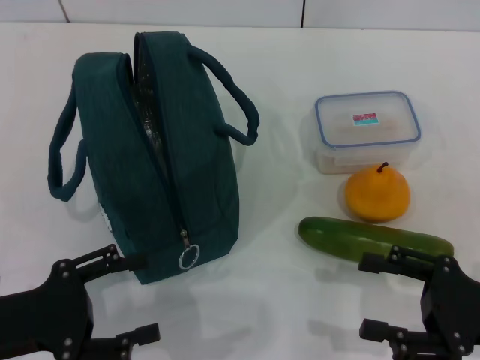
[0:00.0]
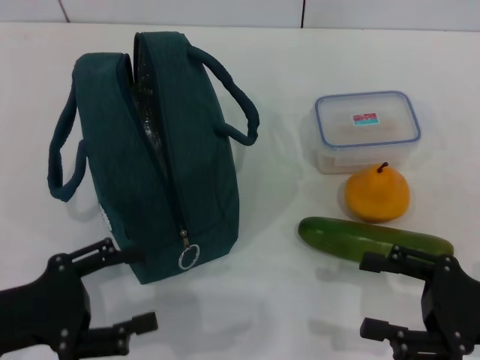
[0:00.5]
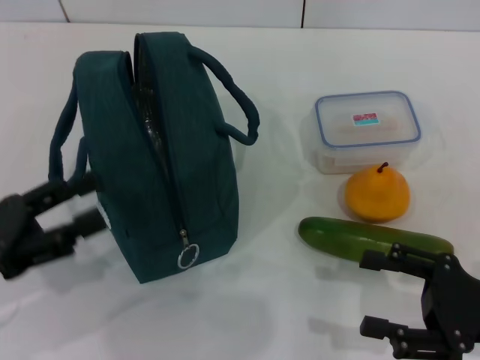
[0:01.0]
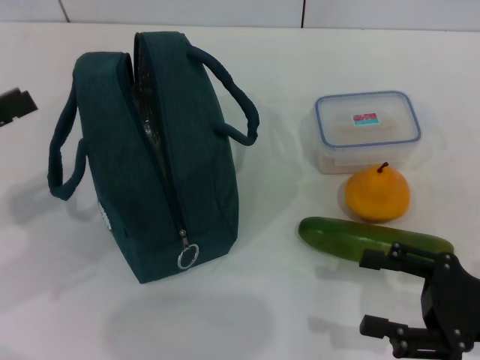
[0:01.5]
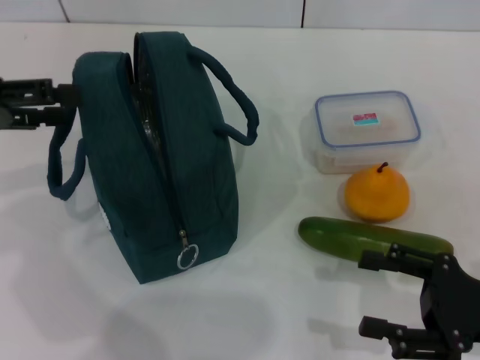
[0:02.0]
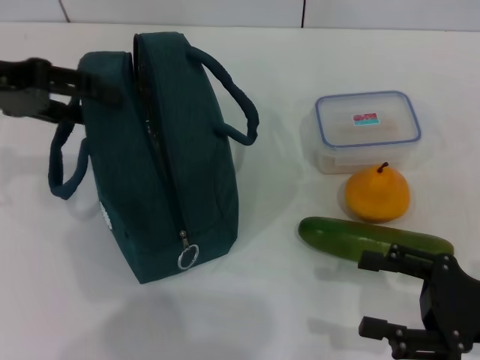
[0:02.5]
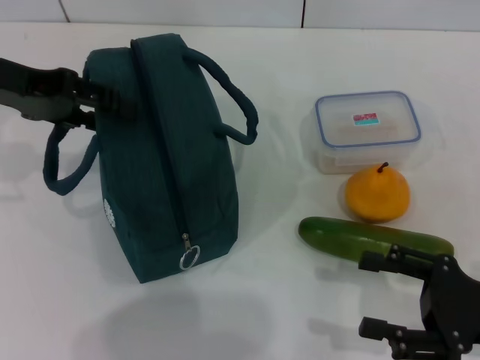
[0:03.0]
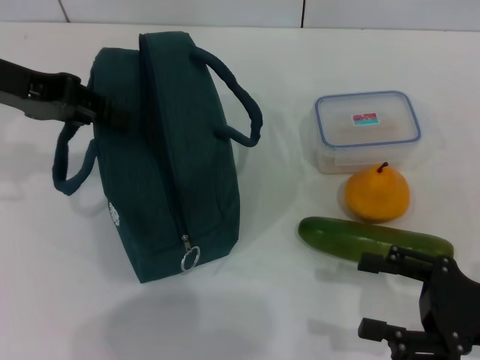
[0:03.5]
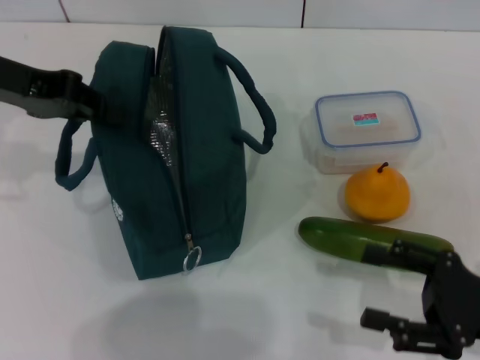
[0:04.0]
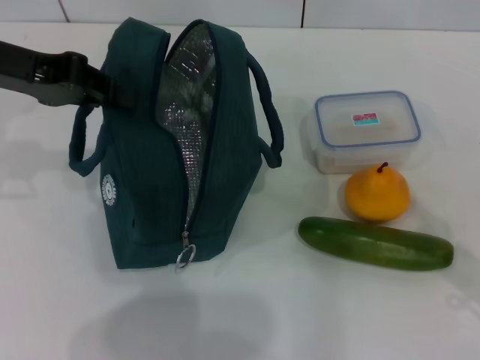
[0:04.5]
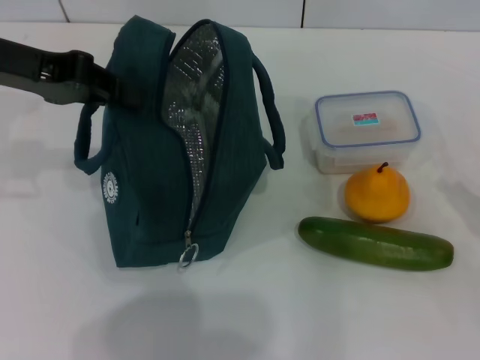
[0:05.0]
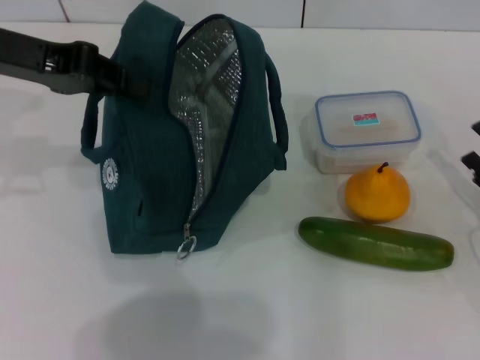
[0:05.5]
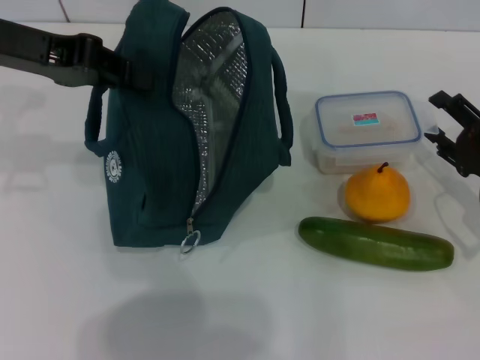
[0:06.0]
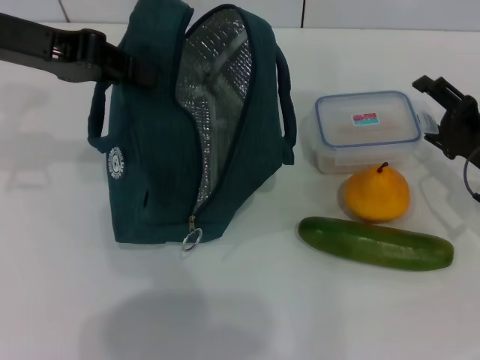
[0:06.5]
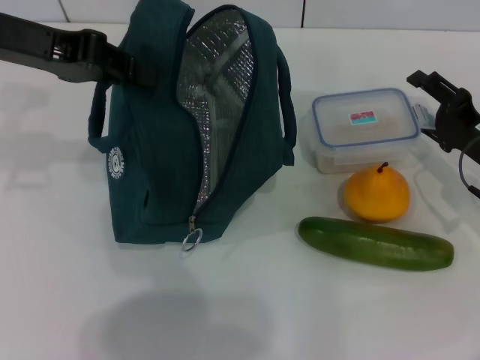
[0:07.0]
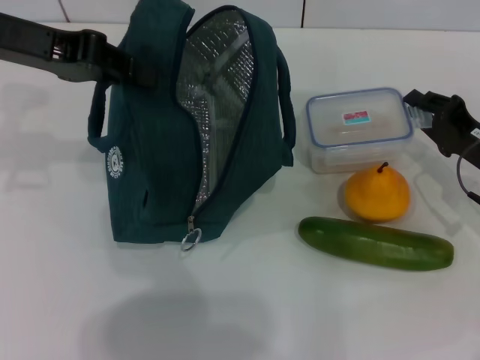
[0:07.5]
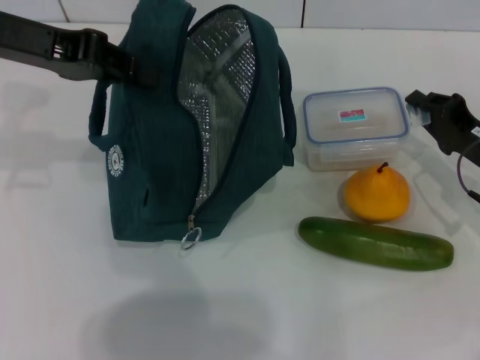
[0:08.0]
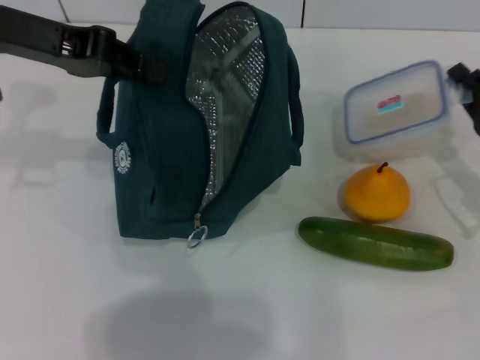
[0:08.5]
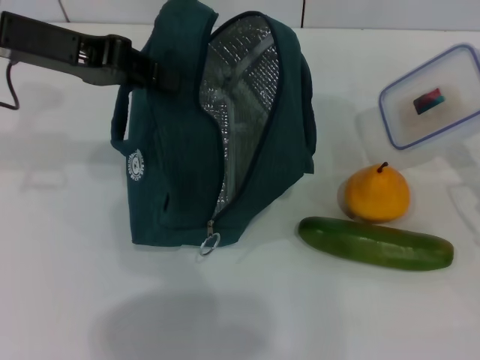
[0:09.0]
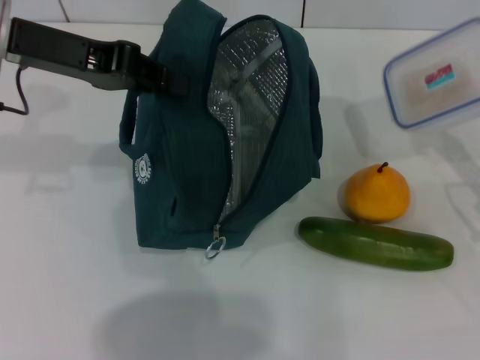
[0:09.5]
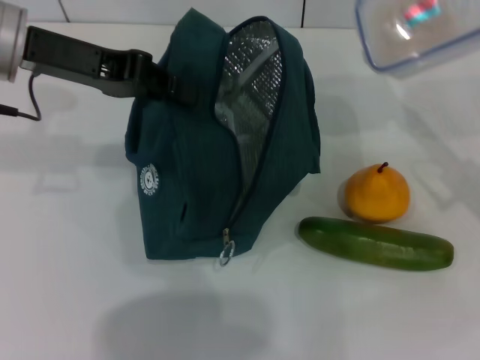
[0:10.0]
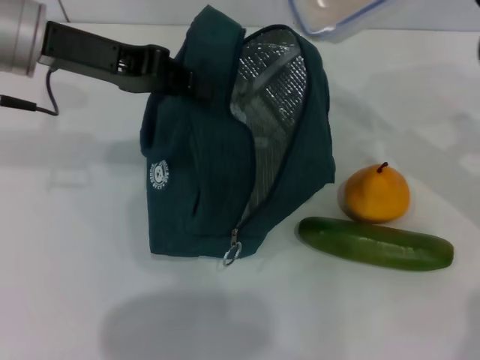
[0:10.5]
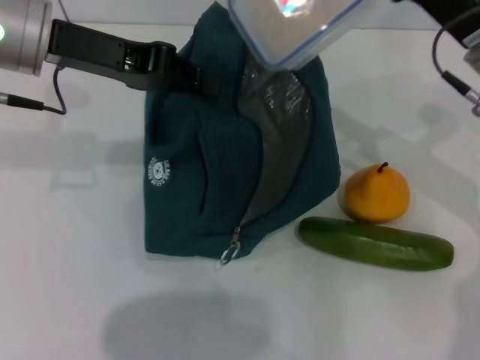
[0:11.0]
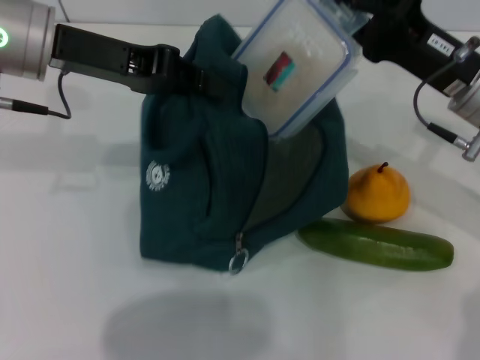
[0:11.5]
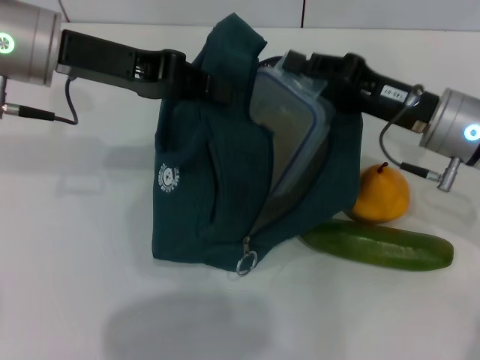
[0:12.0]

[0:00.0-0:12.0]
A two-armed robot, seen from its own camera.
Step, 0:00.0 to 0:04.0: Hold the lunch bag with your left hand.
Step, 0:04.5 to 0:07.5: Pick up the lunch box with your right hand.
0:00.0 to 0:02.0: The left gripper goes some 20 cm forward, upward and to the left.
0:02.0 to 0:04.0: The left gripper shifts roughly 10 cm to the right and forward, and closes its fingers.
0:04.0 to 0:06.0: The right gripper goes roughly 10 cm forward.
0:06.0 to 0:08.0: The right gripper closes.
0:08.0 to 0:10.0: The right gripper shifts about 10 cm upward.
0:10.0 to 0:12.0: The right gripper is displaced to the left by about 10 cm.

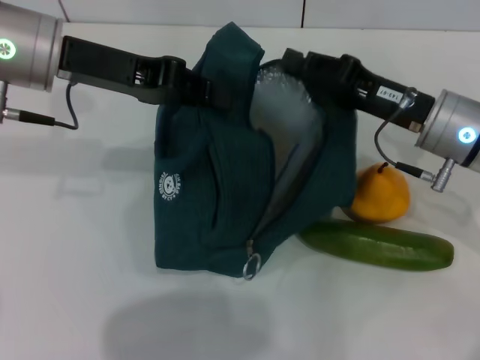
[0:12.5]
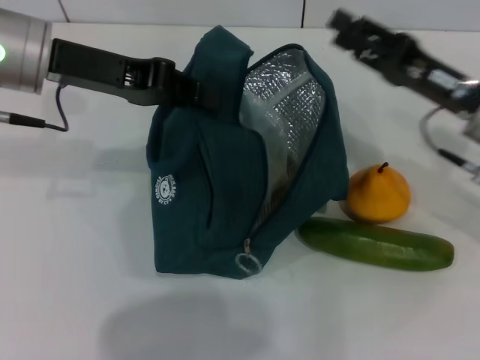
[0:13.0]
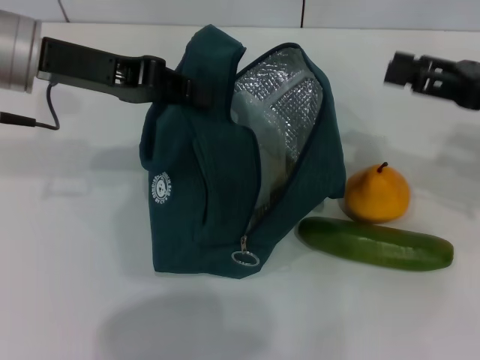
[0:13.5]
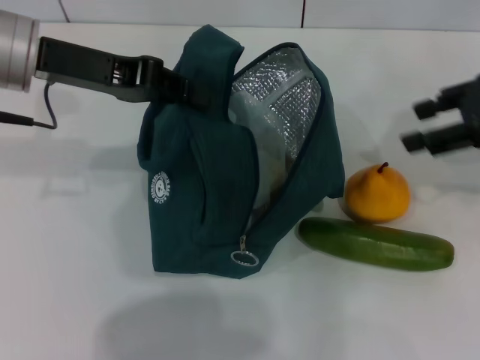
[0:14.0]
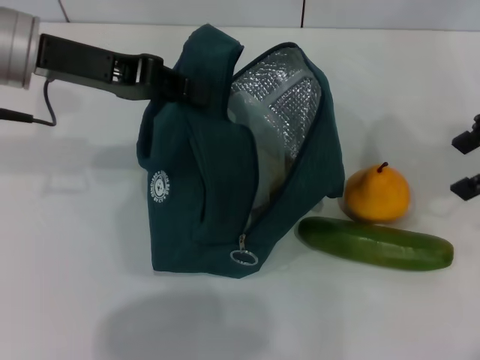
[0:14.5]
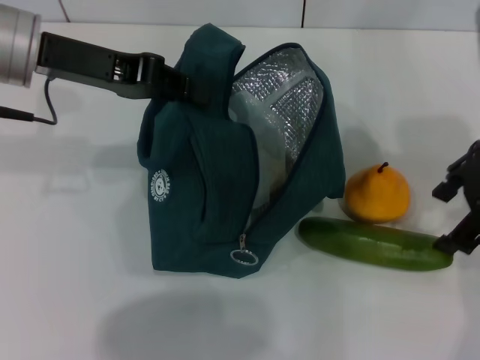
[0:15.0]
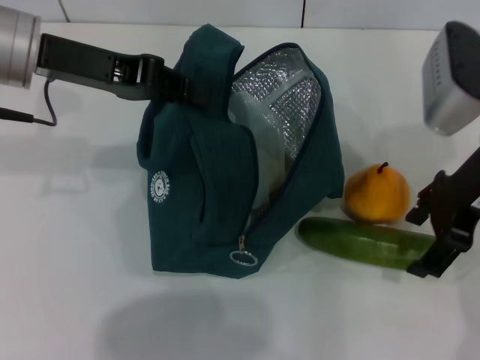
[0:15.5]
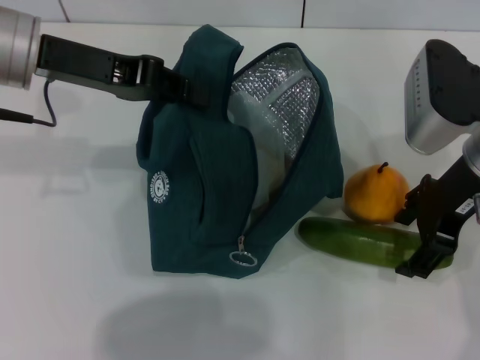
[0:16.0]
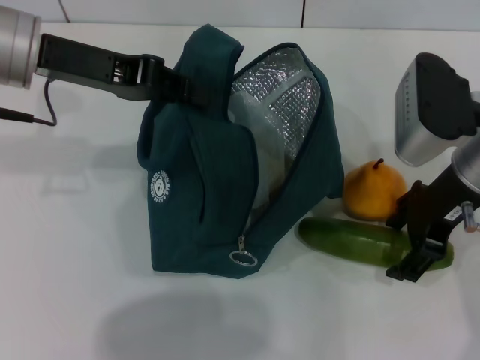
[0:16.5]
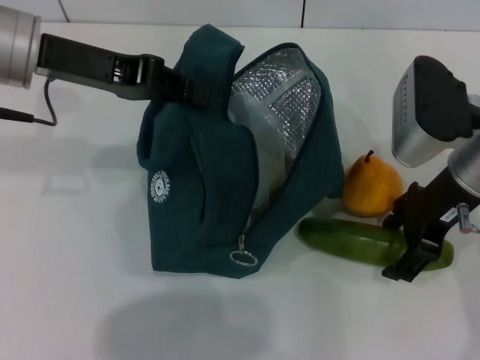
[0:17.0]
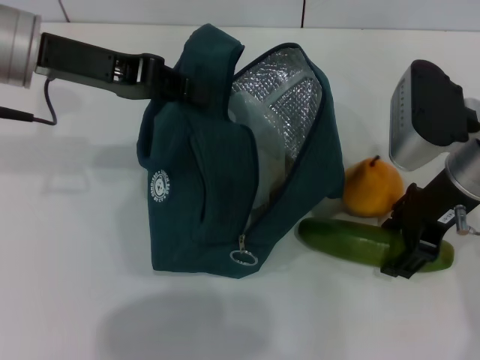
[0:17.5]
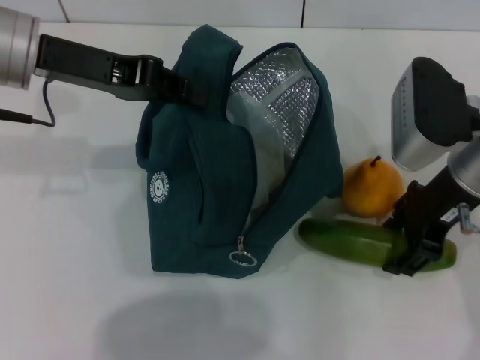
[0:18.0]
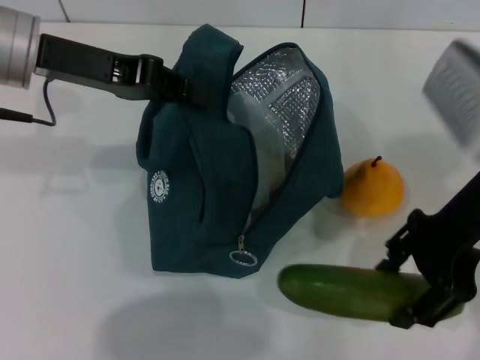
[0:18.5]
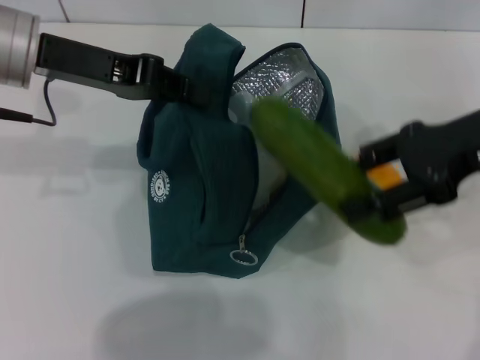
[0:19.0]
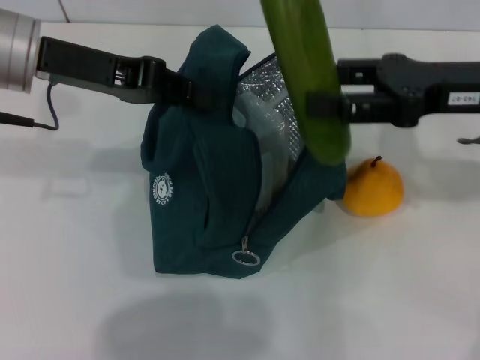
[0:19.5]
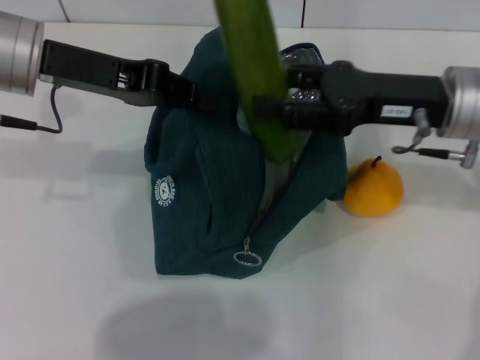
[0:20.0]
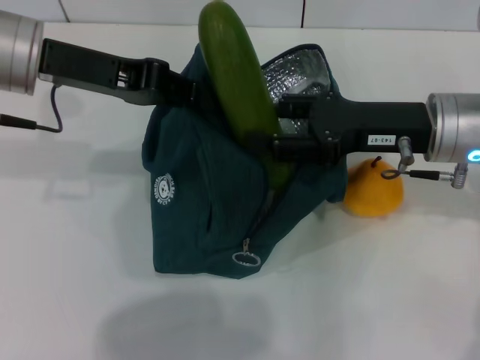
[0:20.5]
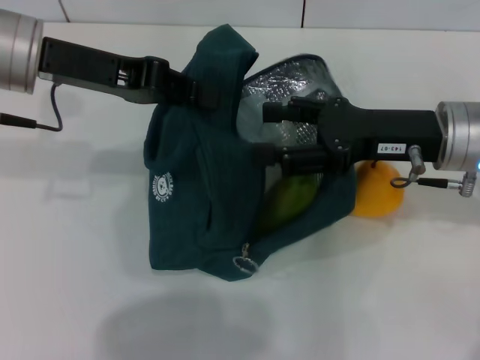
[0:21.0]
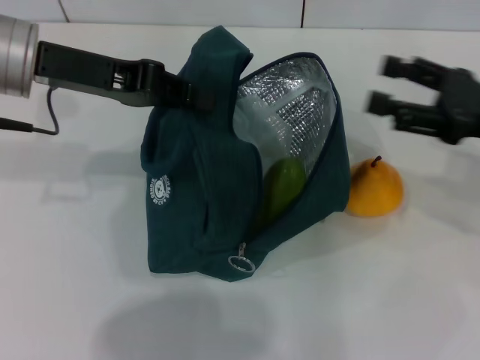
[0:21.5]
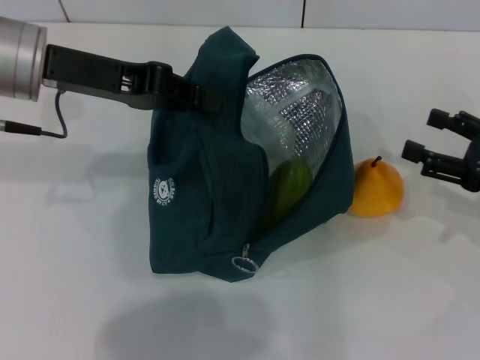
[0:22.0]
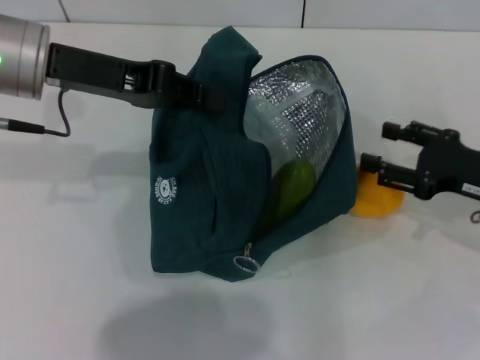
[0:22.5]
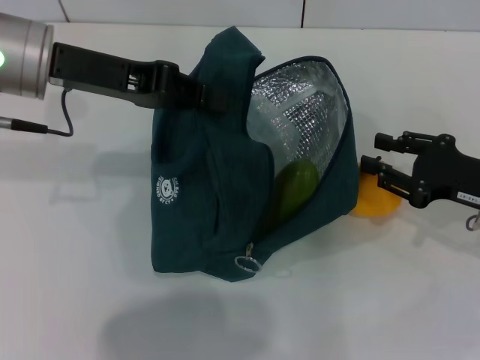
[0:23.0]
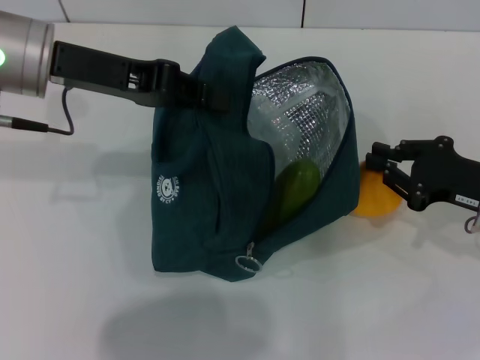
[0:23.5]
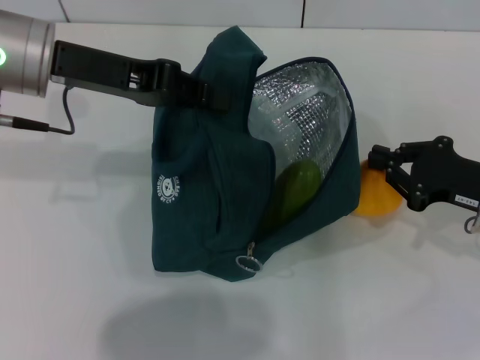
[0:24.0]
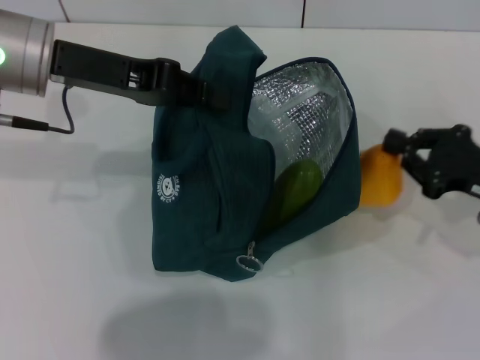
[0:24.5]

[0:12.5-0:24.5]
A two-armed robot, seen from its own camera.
Step, 0:13.0 to 0:17.5: Pick up the cucumber with your right hand.
Step, 0:18.0 to 0:21.0: Put the cucumber into the lunch bag with your right hand.
Step, 0:21.5 to 0:23.5: Grab the pear with your right hand.
0:12.5 to 0:14.5: The right gripper moves upward and to the right, approximately 20 cm, and opens.
0:14.5 to 0:16.5: The right gripper is displaced downward and to the left by some 15 cm.
0:16.5 to 0:18.5: The right gripper changes place by roughly 5 cm.
0:18.5 to 0:20.5: The right gripper is displaced downward by some 5 cm.
0:20.5 to 0:22.5: The right gripper travels to the right and downward by about 10 cm.
0:22.5 to 0:24.5: The right gripper closes up.

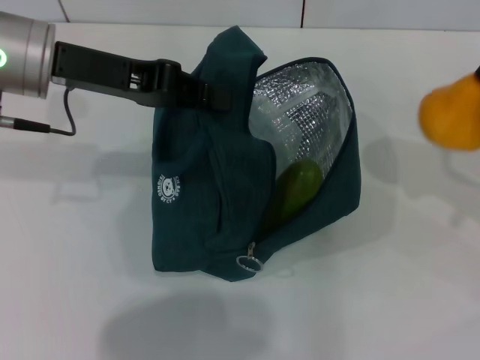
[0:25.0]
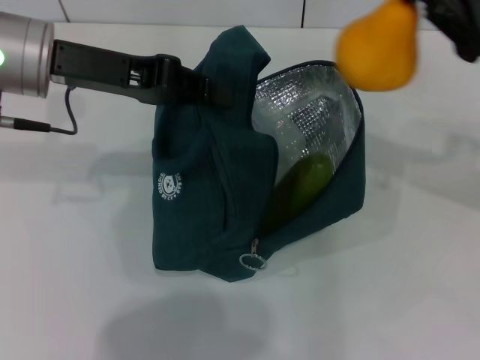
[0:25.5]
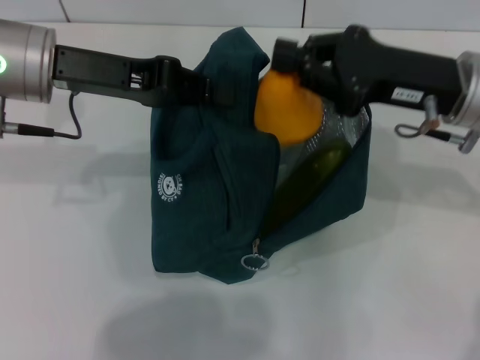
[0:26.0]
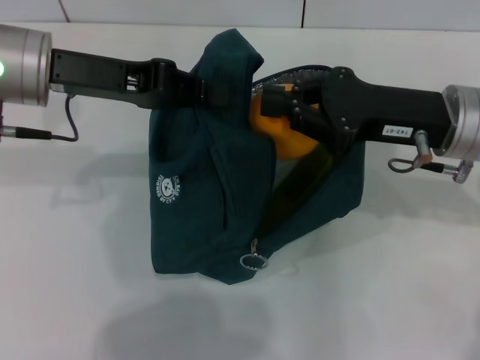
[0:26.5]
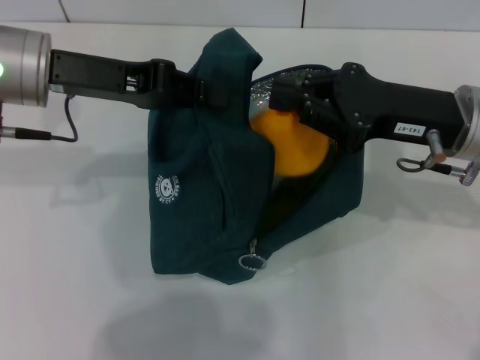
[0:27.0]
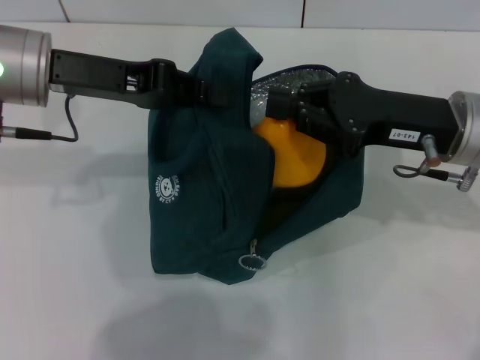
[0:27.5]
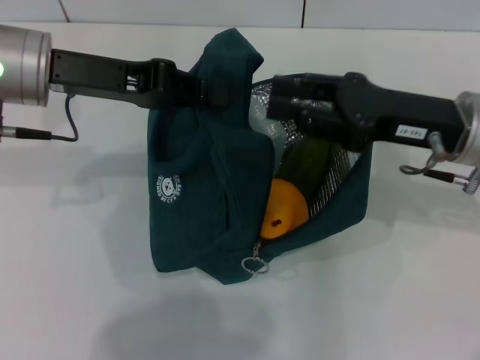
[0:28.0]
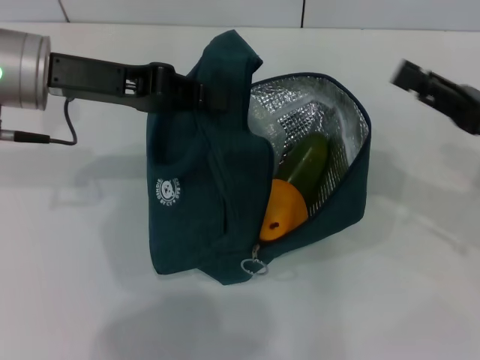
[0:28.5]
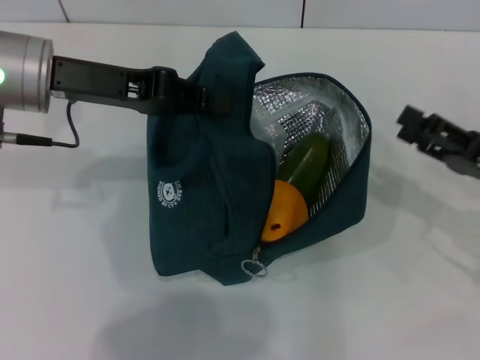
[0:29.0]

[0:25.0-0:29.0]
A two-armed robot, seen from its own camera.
0:25.0 to 0:27.0: The right gripper goes about 15 cm to the left.
0:27.0 to 0:29.0: The right gripper goes approximately 15 cm to the right and downward, and opens up.
